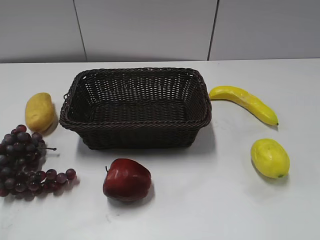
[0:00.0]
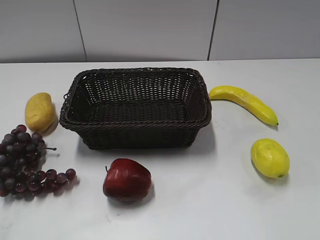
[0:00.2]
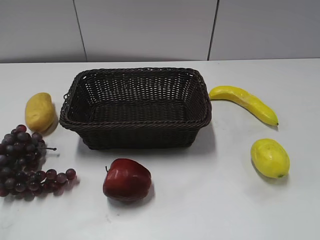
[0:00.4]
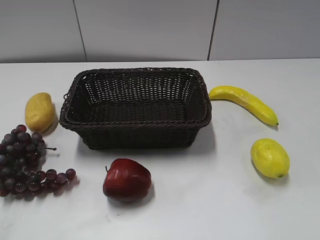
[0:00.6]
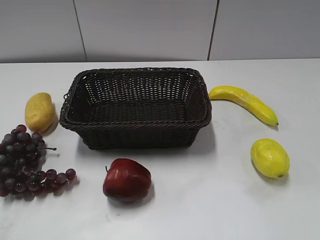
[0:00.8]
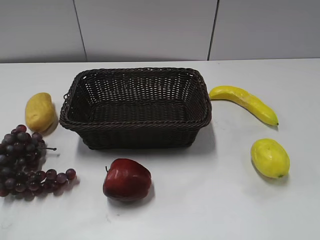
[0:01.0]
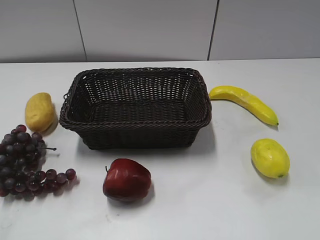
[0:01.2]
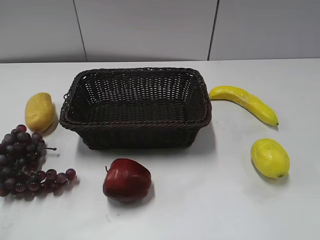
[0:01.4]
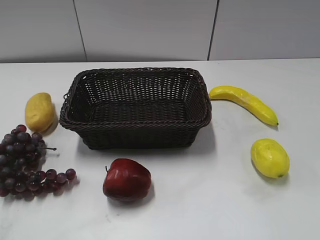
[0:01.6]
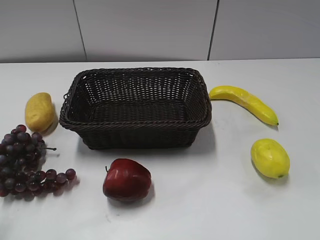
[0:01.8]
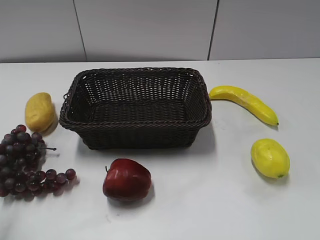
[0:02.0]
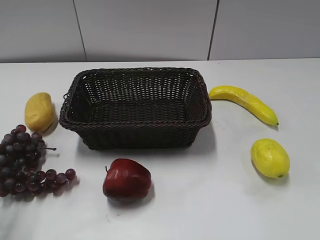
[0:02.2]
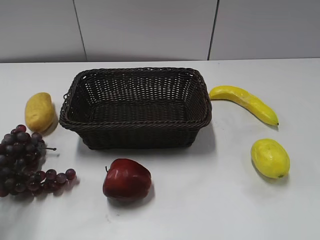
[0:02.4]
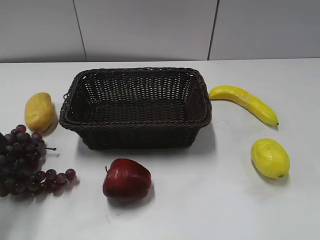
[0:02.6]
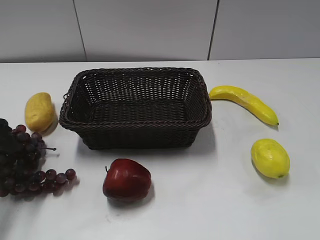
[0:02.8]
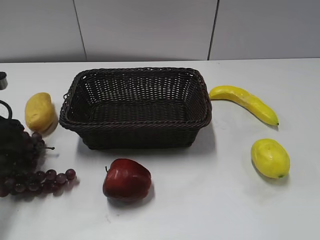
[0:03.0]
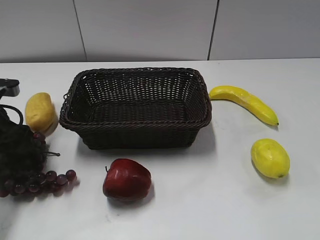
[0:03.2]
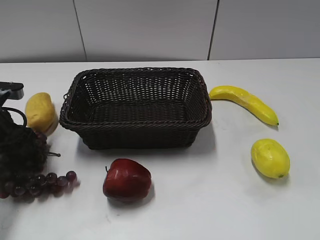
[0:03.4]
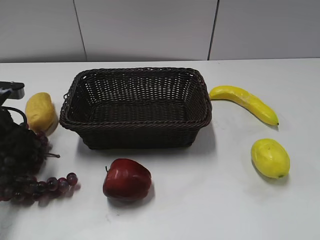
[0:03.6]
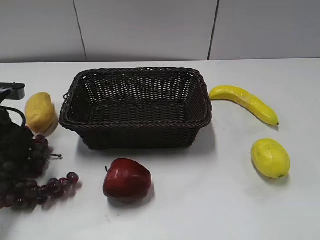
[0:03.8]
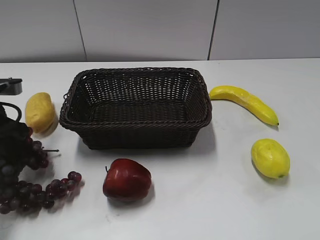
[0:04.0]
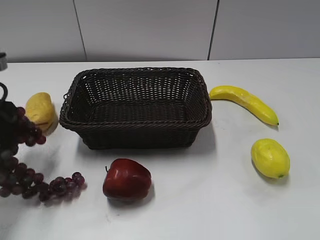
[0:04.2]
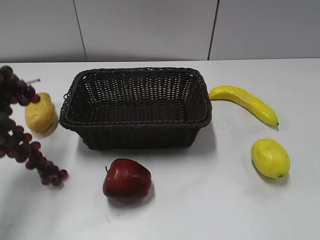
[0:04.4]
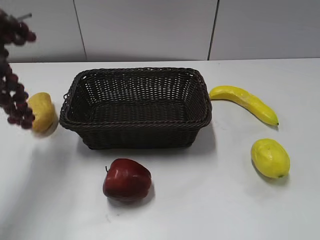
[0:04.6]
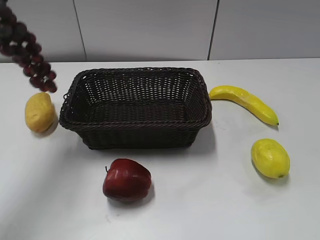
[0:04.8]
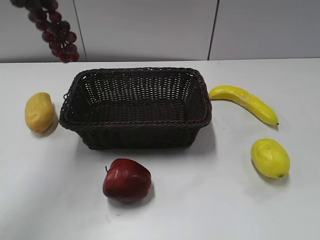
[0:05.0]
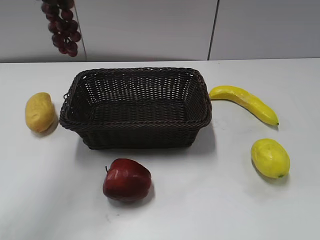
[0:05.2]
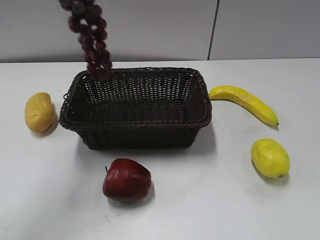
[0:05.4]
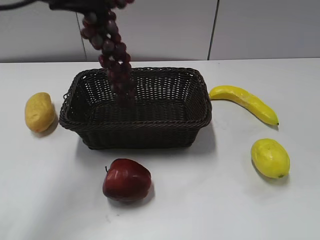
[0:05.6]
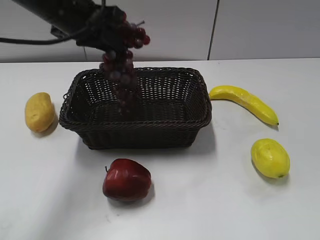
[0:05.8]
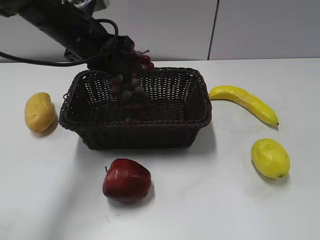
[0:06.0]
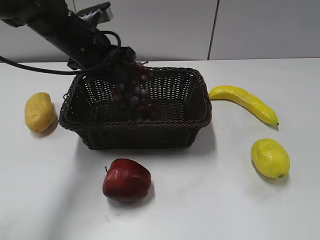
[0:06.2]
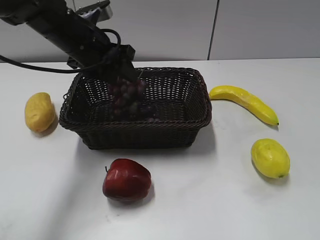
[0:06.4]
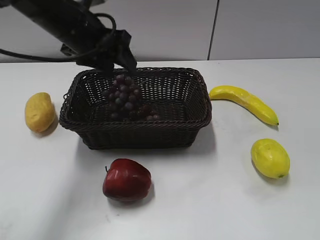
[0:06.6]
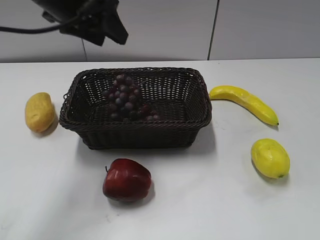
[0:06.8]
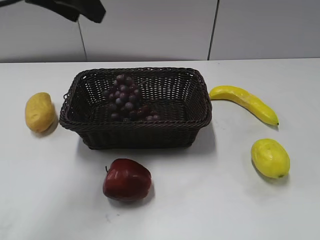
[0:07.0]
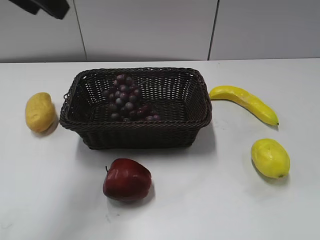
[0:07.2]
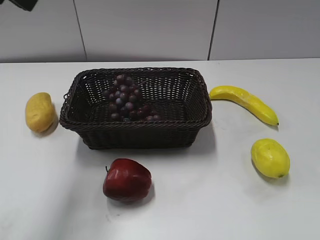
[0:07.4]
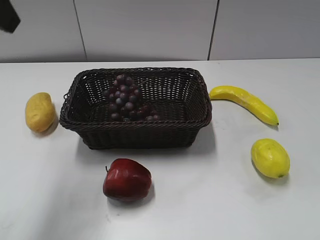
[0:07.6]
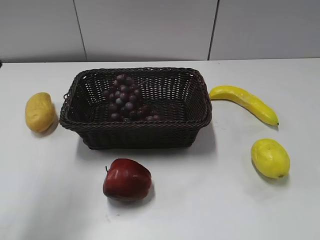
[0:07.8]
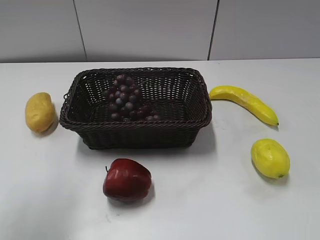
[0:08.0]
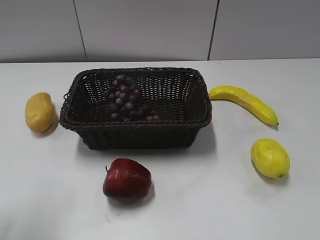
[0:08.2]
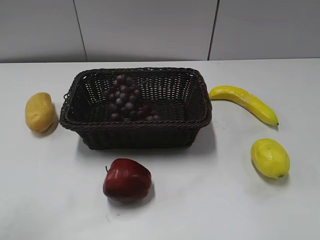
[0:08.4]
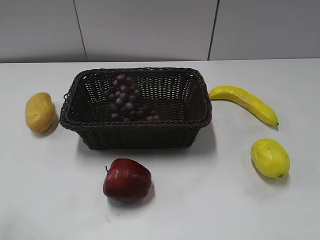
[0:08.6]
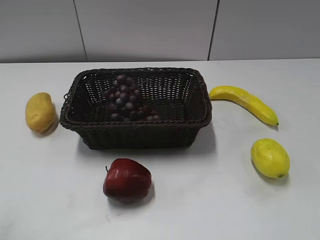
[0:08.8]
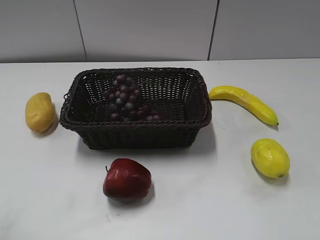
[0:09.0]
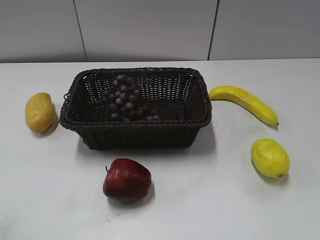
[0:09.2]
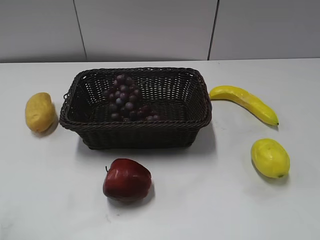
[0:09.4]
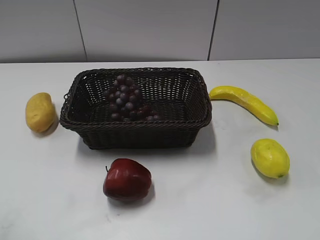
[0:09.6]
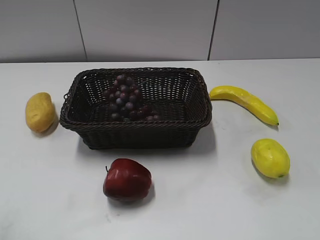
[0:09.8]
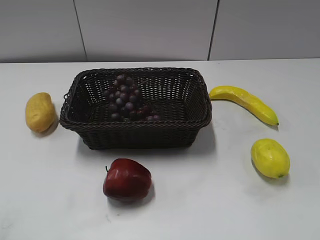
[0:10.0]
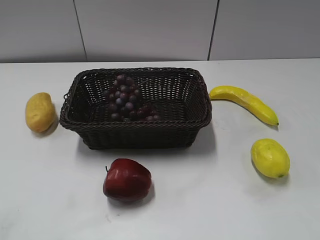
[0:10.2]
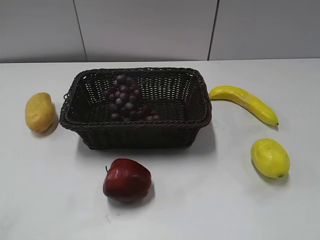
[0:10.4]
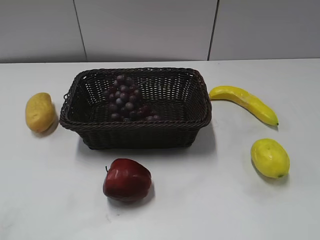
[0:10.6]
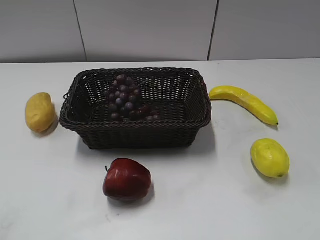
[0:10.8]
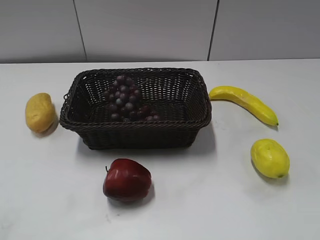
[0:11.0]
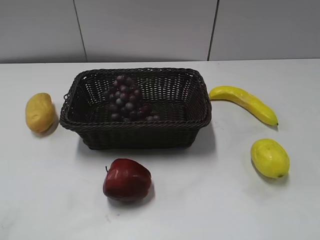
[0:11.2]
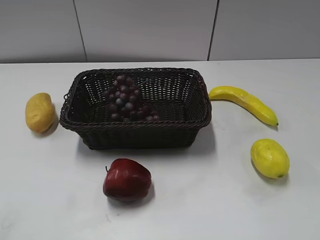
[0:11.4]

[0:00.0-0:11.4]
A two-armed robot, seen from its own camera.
Step, 0:02.6 to 0:04.0: Grasp the grape with left gripper.
Step, 0:04.2 to 0:06.6: Place the grape in the basket with left gripper.
0:01.4 to 0:02.8: The left gripper moves forward, roughly 25 cm.
0:02.8 to 0:04.2: The left gripper closes up.
0:04.2 to 0:05.6: The left gripper travels to the right, upward and forward by about 20 cm.
0:05.6 to 0:07.2: The left gripper heads backward and upward, covering about 10 cm, and opens its fingers.
0:07.2 to 0:08.6: The left gripper goes about 25 cm backward, downward and to the left.

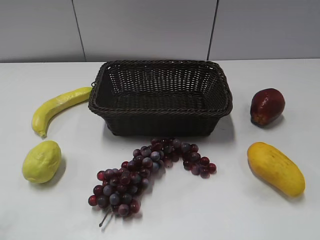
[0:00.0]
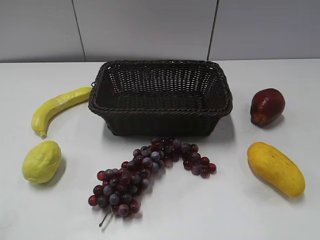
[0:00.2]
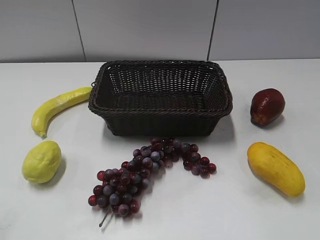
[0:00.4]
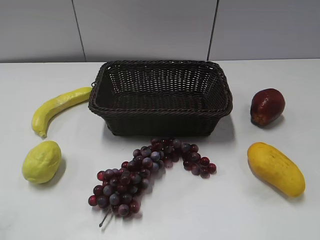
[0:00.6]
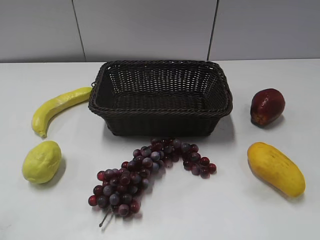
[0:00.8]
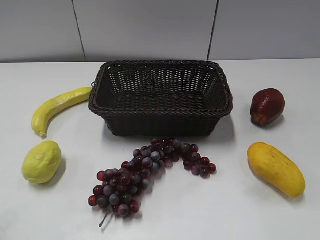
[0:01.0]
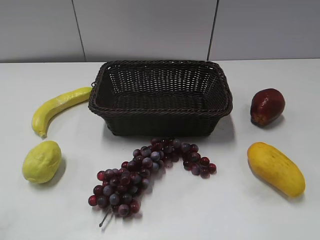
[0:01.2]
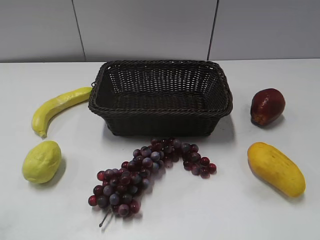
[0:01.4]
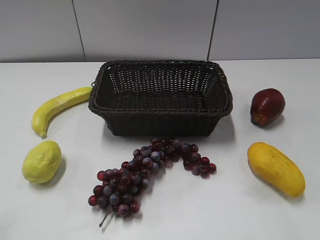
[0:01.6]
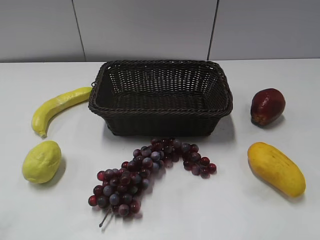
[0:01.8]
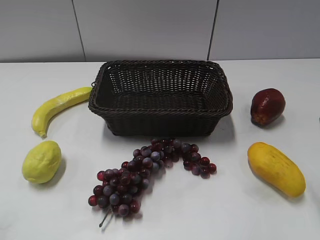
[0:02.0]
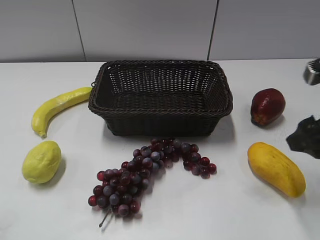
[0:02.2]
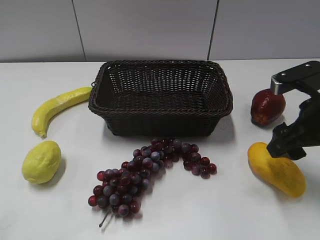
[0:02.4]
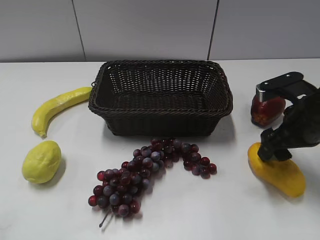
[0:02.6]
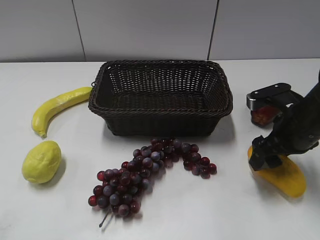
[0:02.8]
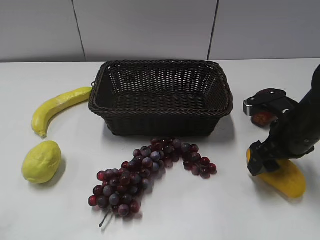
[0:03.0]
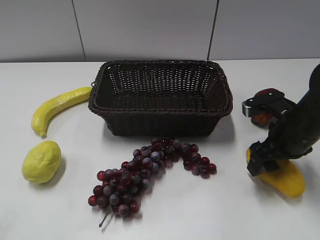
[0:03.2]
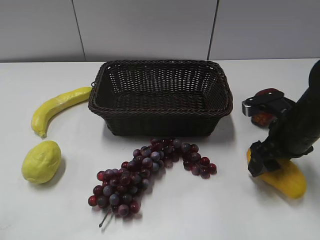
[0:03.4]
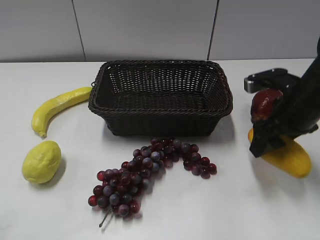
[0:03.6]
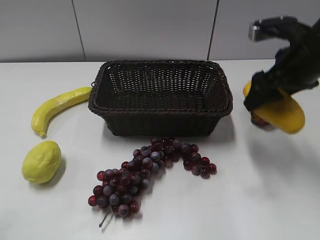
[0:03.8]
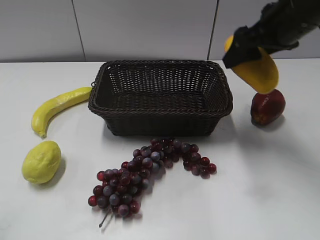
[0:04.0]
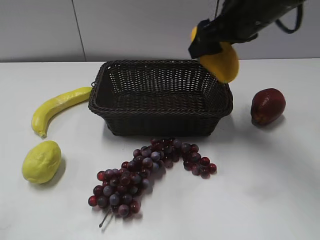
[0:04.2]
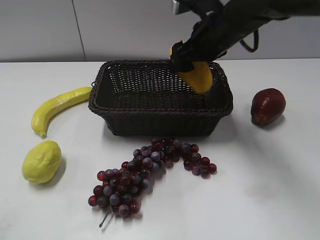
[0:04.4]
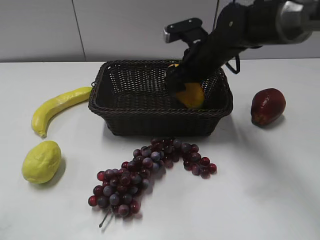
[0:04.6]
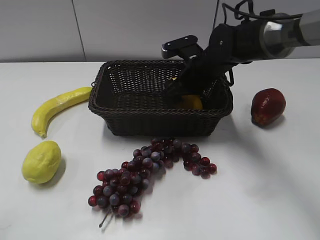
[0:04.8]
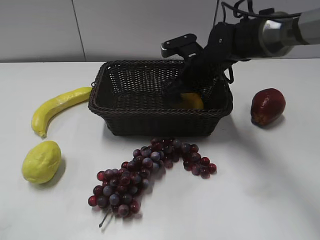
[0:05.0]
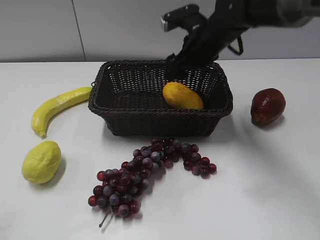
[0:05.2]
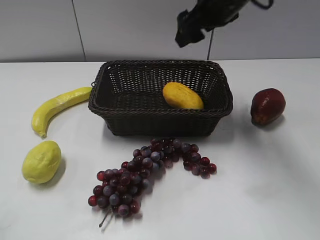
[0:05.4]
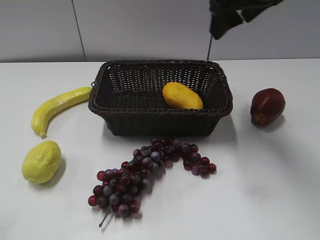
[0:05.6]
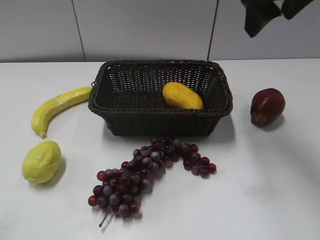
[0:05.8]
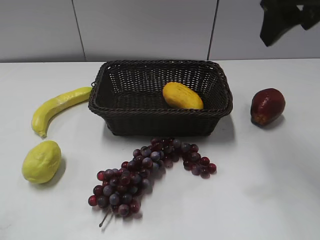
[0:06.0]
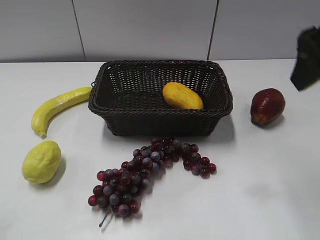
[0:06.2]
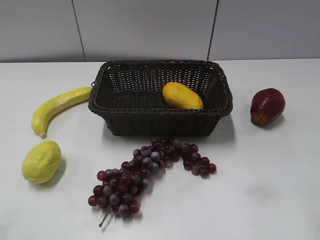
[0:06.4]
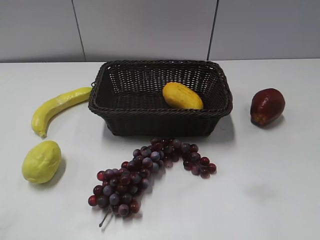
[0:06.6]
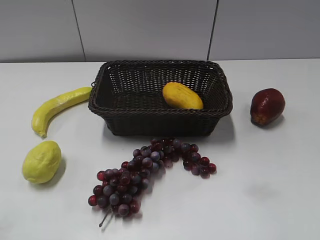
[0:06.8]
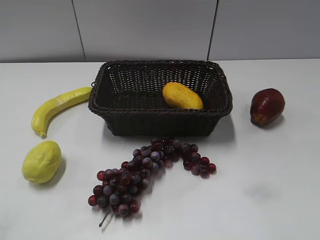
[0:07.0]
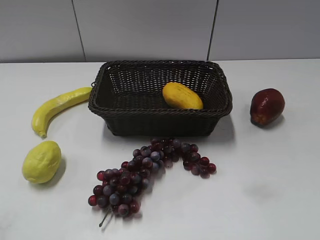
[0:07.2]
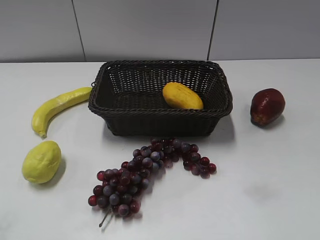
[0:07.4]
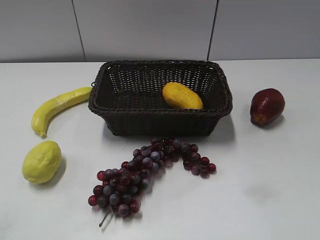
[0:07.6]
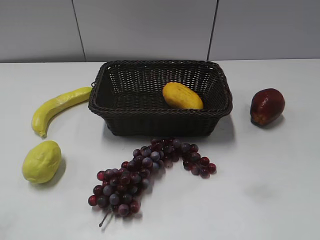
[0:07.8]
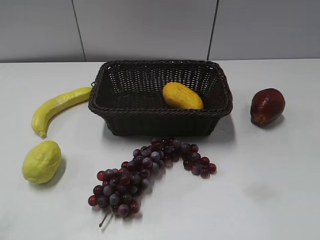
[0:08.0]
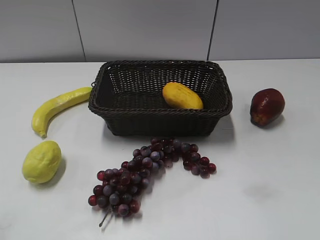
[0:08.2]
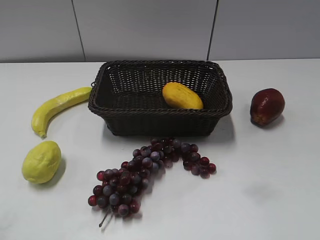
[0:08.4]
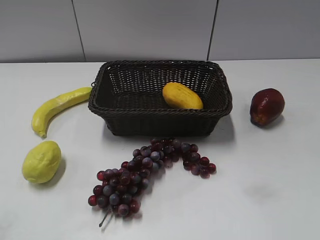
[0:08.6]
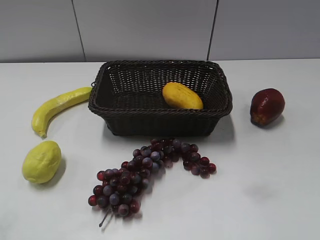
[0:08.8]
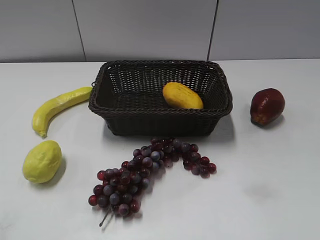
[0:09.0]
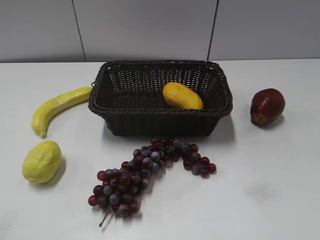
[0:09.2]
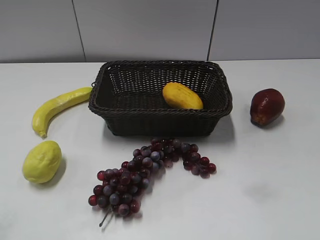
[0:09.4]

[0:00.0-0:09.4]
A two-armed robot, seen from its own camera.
Step, 0:02.0 to 0:03.2: Grasp the mango with right gripper.
Step, 0:03.4 to 0:05.0: Place the mango in the basket with right gripper.
0:01.6 to 0:03.2: The right gripper goes about 30 cm forward and downward.
0:03.2 to 0:04.8: The right gripper is displaced to the left and forward by approximately 20 cm, and travels upward and back again, some 15 cm each way.
0:04.8 to 0:06.2: The right gripper heads upward, backward and to the right, covering about 30 cm.
0:06.2 to 0:07.8: The right gripper heads backward and to the right, covering roughly 20 cm.
